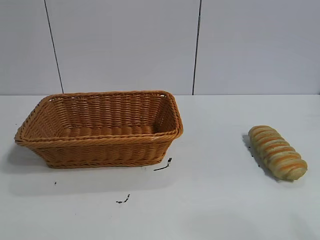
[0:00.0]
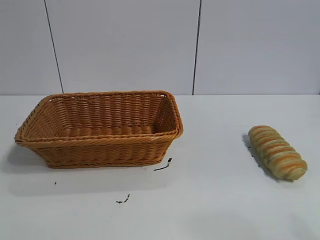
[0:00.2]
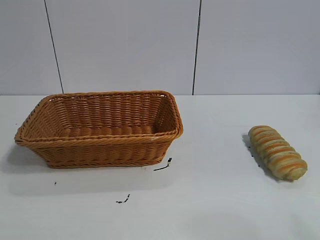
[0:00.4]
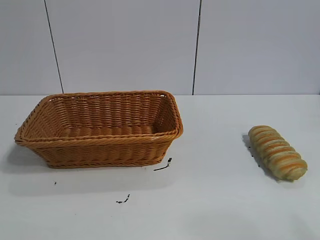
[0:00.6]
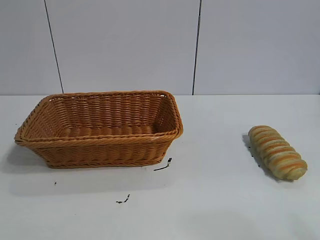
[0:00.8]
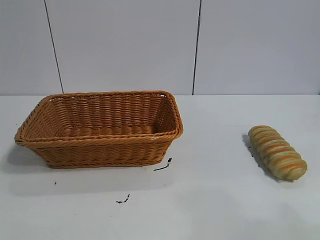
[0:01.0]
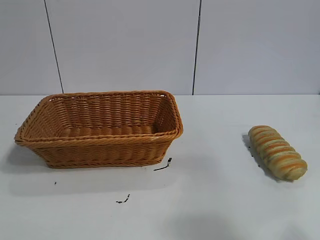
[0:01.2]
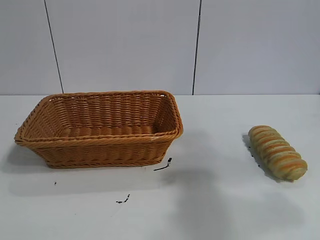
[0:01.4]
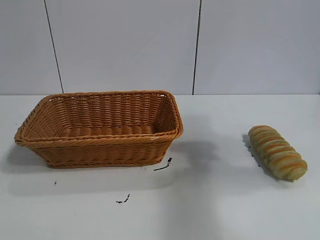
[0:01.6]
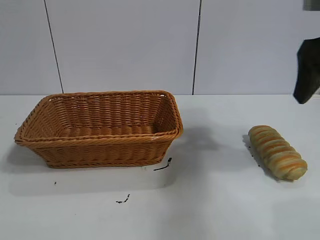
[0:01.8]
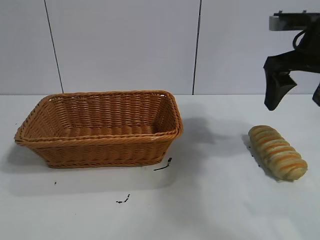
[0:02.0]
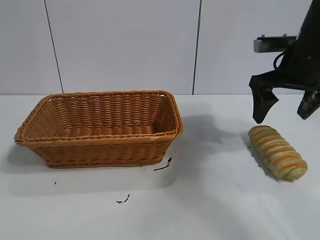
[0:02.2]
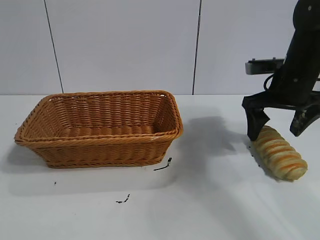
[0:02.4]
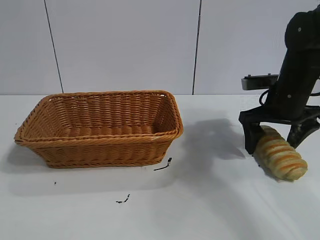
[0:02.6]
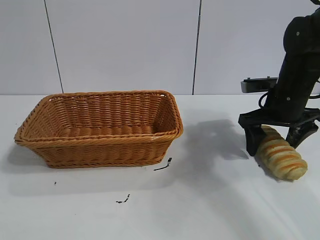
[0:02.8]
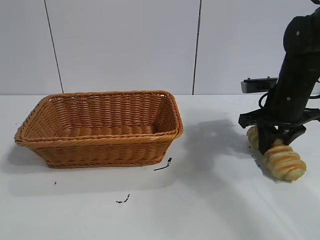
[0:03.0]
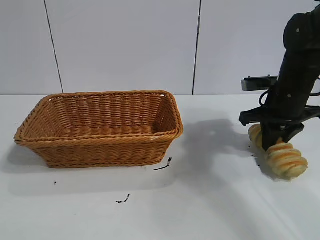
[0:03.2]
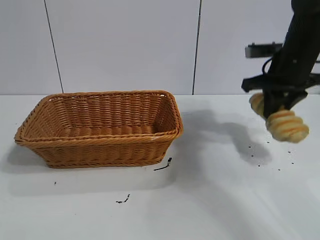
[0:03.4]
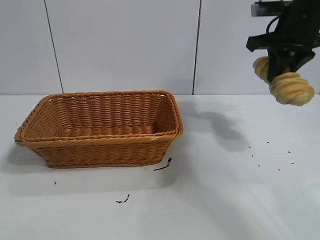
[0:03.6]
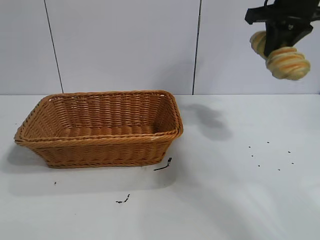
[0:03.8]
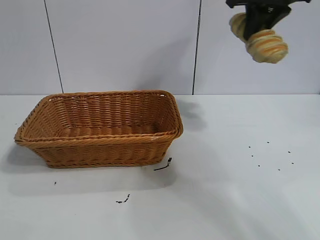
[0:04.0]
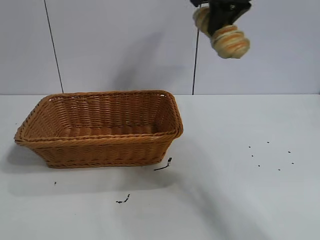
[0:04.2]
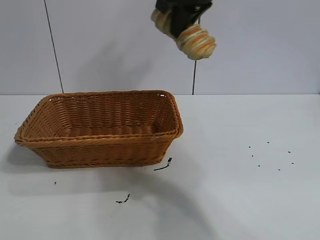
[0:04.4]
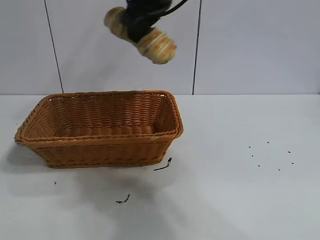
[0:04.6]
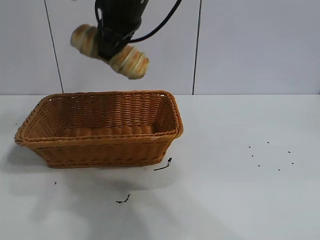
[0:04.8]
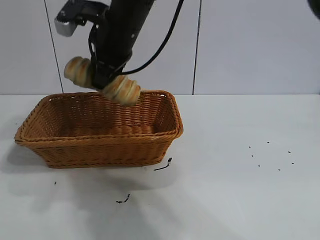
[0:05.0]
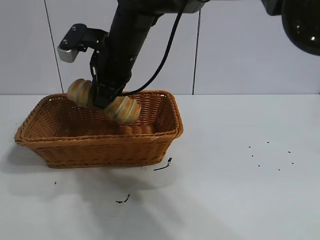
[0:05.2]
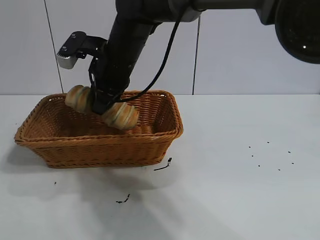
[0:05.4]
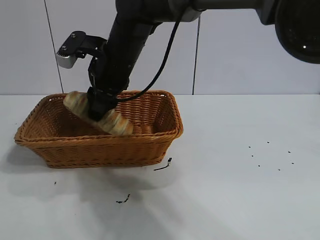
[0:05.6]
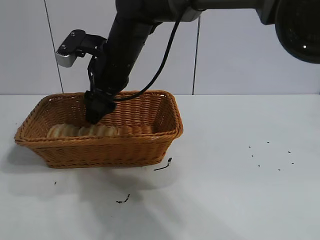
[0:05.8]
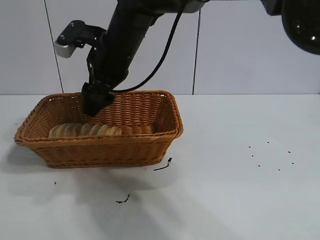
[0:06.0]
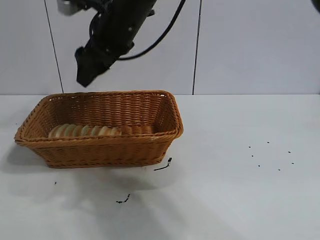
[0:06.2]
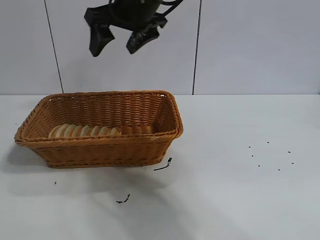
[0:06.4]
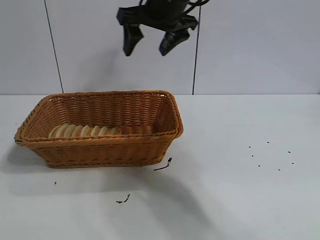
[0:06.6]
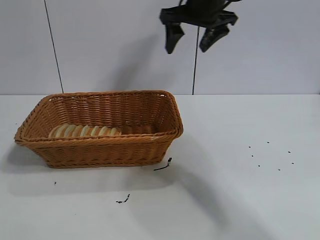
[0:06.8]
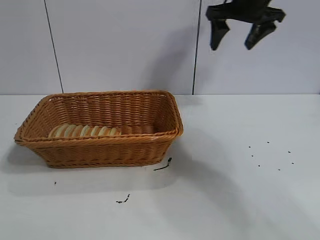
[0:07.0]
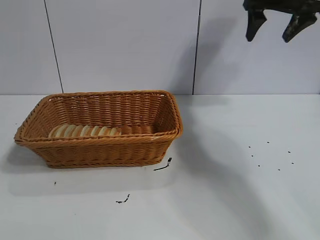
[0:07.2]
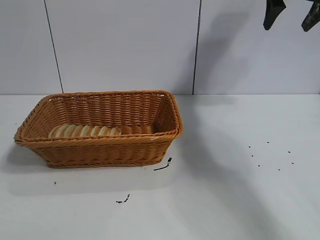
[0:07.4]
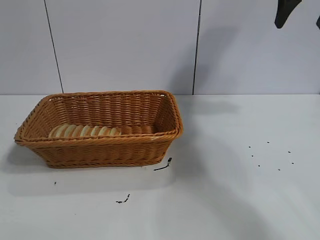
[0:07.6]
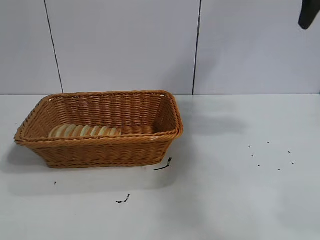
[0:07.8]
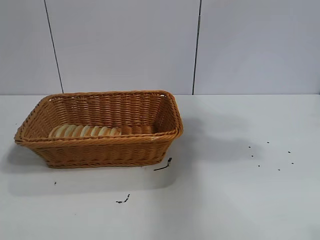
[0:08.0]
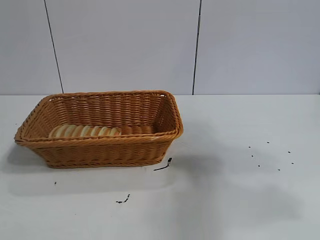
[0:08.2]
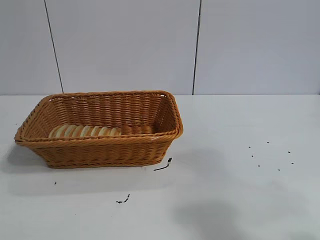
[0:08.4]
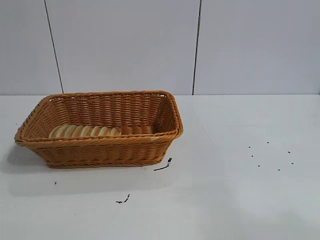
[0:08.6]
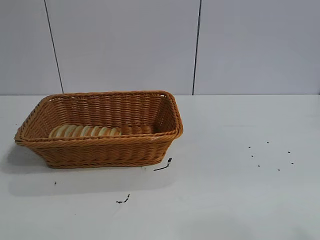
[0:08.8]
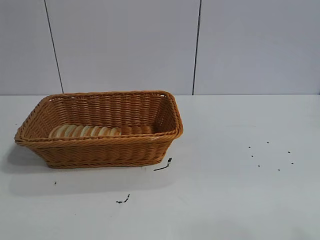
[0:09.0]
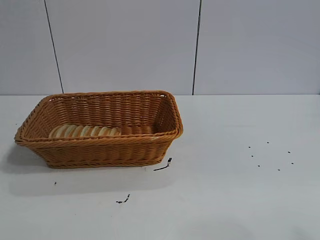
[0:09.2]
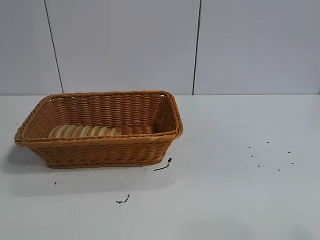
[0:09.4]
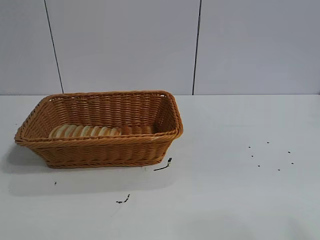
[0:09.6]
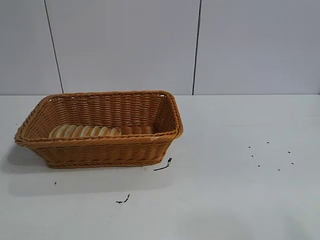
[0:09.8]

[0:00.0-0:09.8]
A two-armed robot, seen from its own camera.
Task of the whole recording: pick up the long bread and put it into the basket.
Step, 0:01.8 to 0:03.2: Grasp the long bread with right gripper.
Step, 0:03.4 to 0:06.0: Place the long bread in the basket with right gripper.

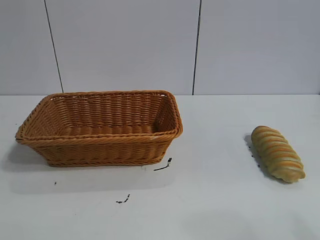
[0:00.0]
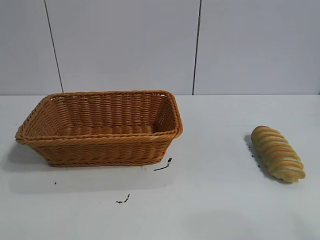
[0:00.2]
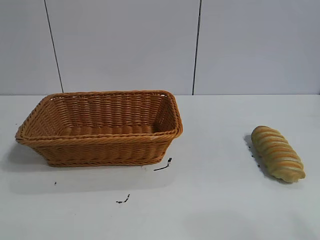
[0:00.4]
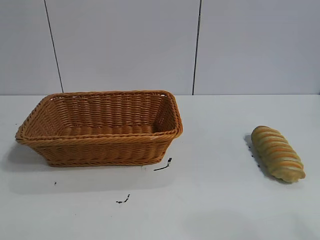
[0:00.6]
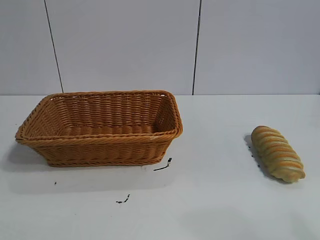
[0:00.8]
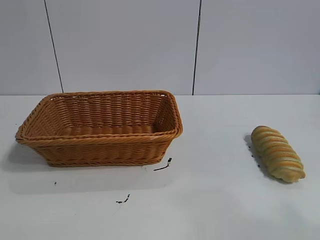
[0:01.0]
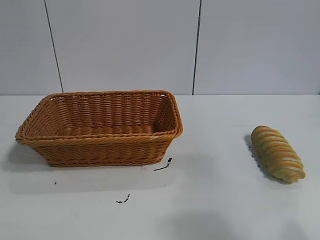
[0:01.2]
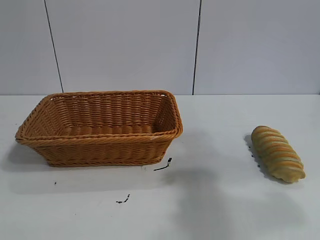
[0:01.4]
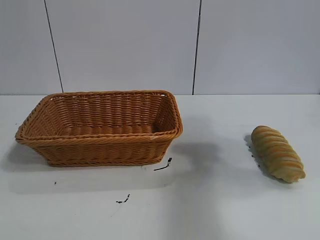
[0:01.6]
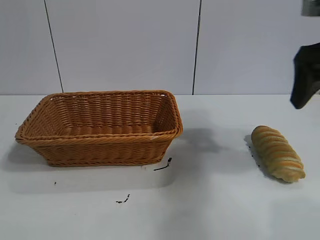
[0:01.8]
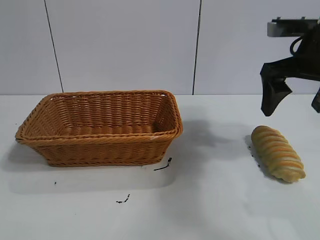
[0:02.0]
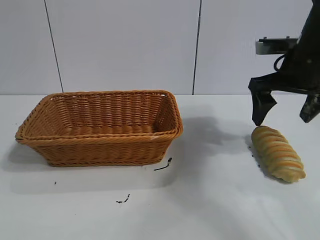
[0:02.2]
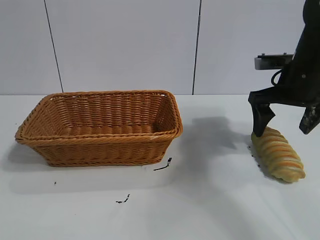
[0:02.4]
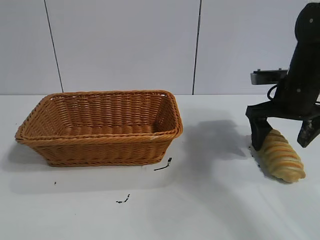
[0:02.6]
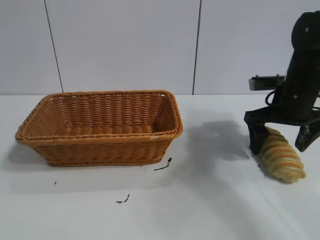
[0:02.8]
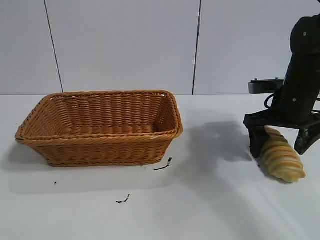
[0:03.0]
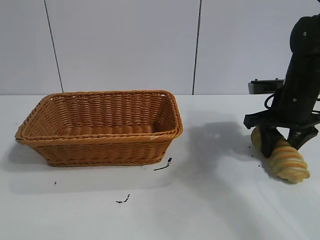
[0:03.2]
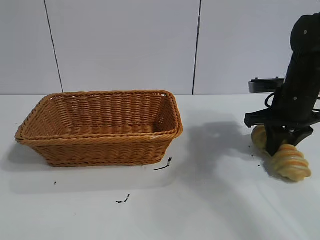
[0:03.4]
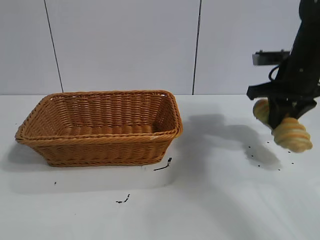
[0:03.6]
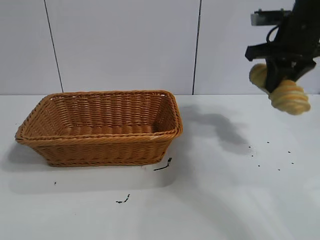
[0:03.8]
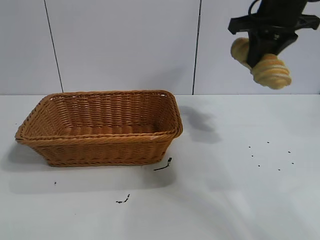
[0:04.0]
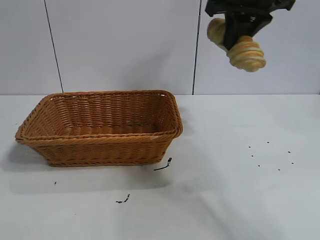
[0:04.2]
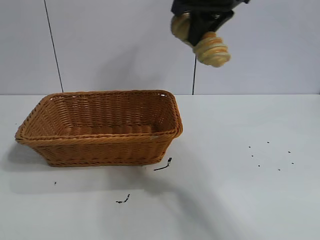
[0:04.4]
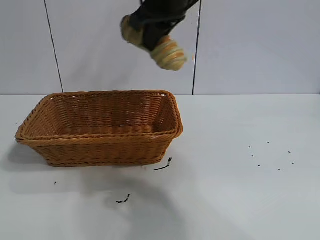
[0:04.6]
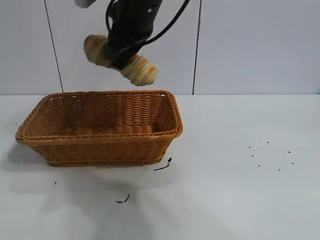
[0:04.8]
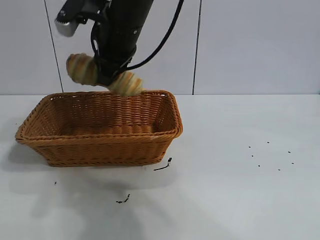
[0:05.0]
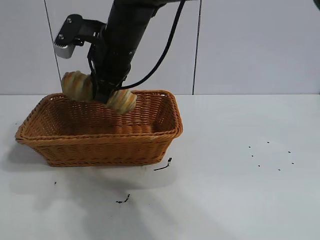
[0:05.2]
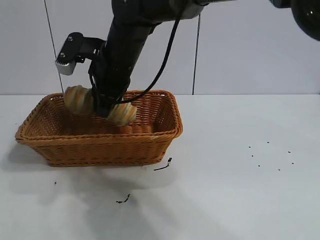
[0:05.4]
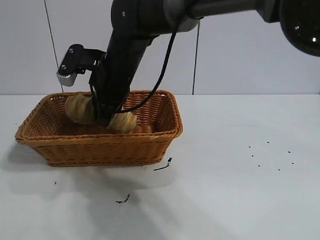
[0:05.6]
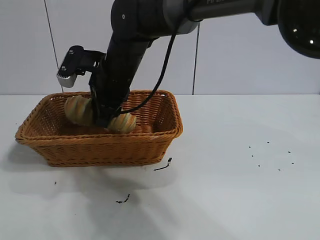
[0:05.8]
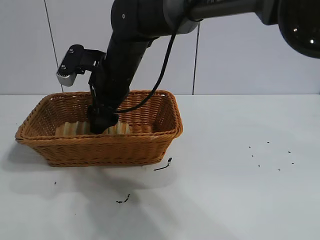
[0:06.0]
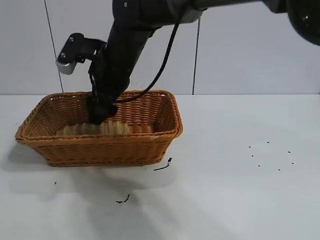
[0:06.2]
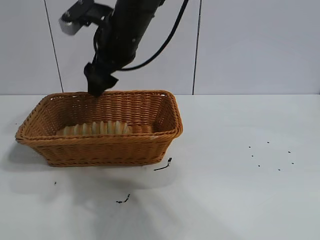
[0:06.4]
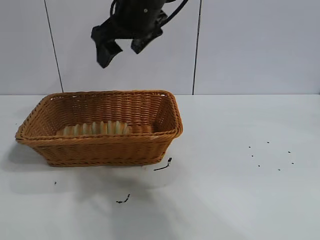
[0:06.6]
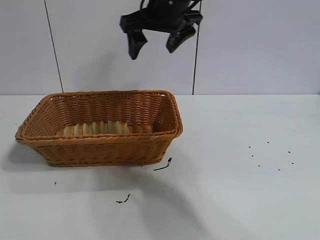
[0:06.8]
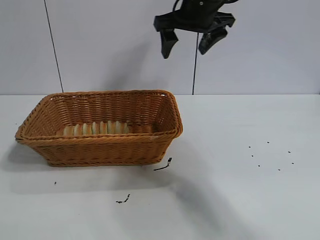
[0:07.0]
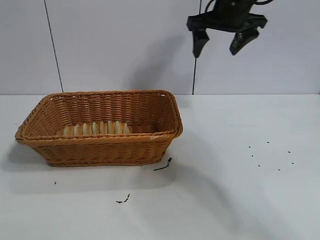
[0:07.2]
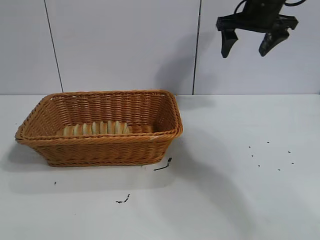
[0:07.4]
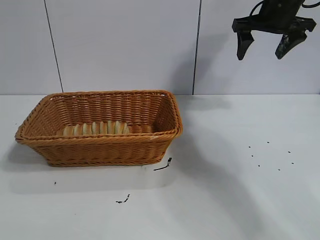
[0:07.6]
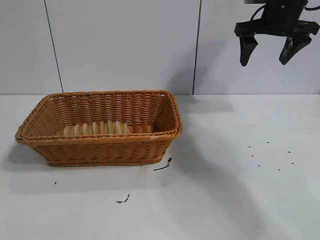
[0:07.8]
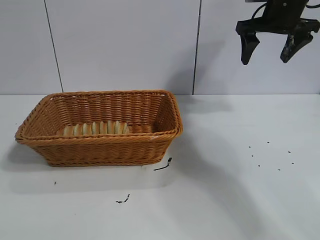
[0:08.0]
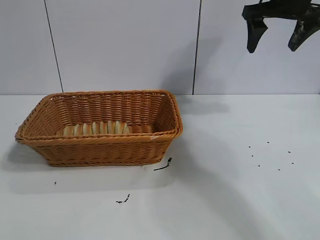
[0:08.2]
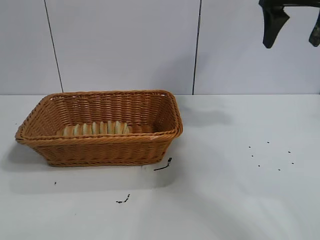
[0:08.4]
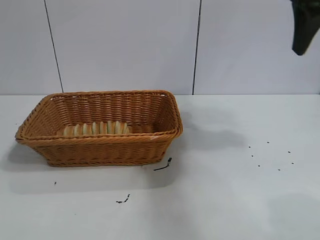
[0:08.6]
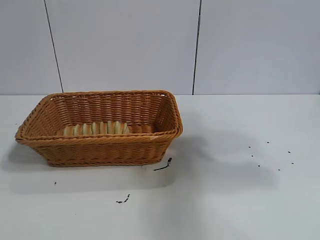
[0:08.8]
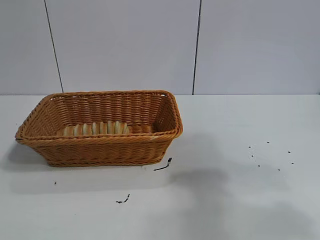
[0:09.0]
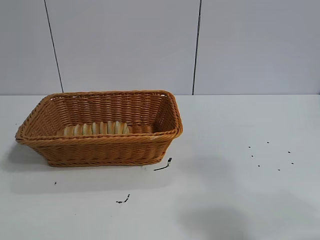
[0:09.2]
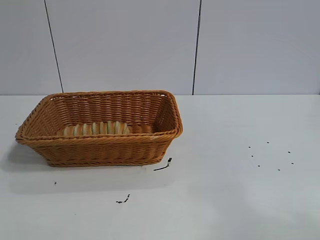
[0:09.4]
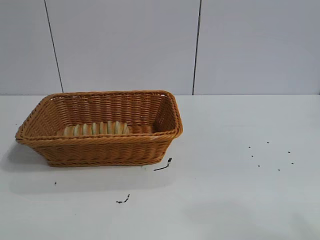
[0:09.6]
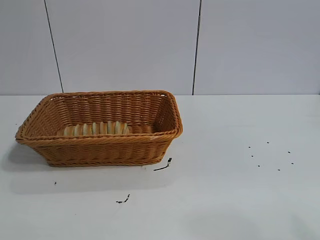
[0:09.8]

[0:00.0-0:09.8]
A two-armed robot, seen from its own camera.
Task of the whole recording: pick up the long bread and put it into the basket.
Step, 0:01.8 to 0:03.4: Grasp the long bread with right gripper.
Step, 0:03.6 to 0:06.2: Place the long bread in the basket with right gripper.
